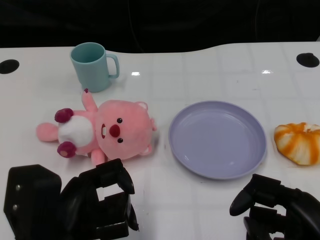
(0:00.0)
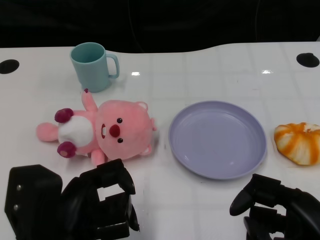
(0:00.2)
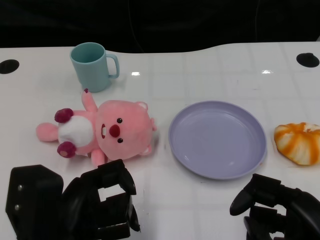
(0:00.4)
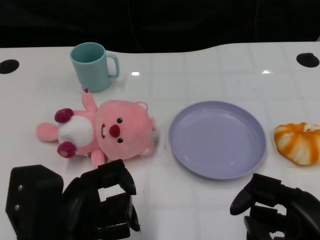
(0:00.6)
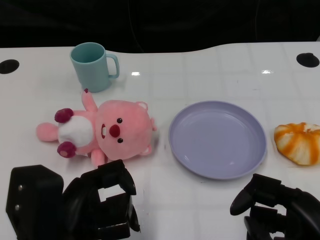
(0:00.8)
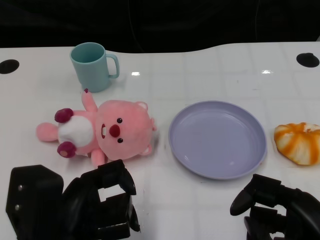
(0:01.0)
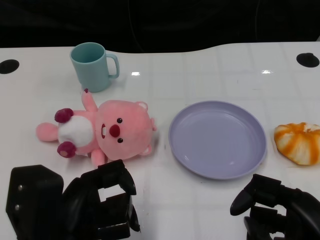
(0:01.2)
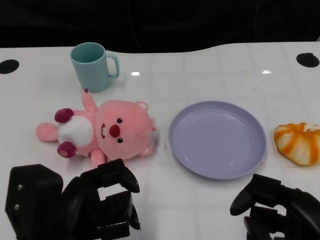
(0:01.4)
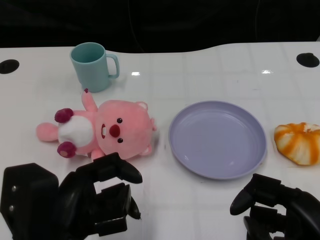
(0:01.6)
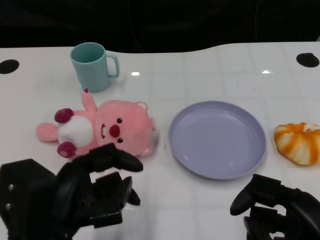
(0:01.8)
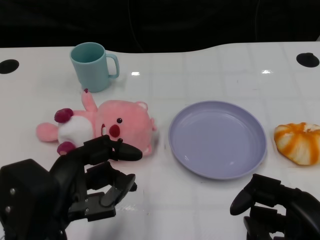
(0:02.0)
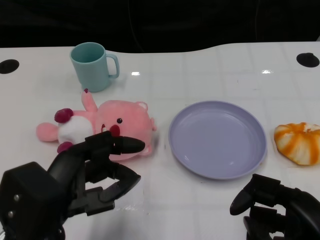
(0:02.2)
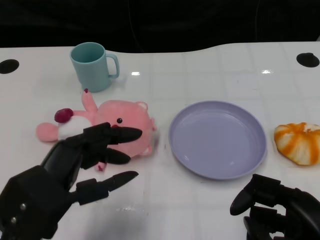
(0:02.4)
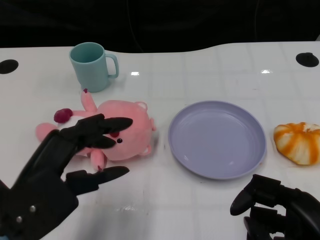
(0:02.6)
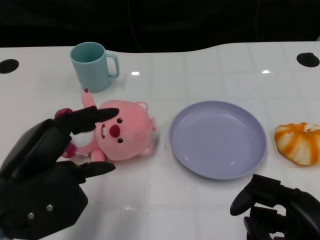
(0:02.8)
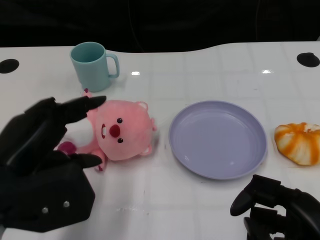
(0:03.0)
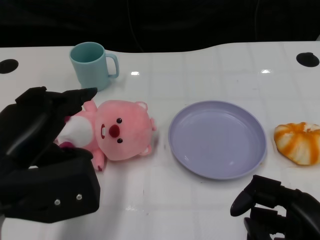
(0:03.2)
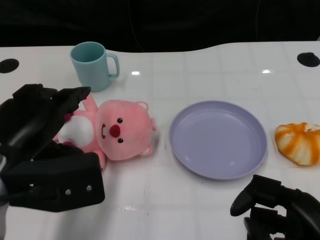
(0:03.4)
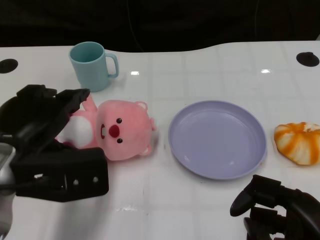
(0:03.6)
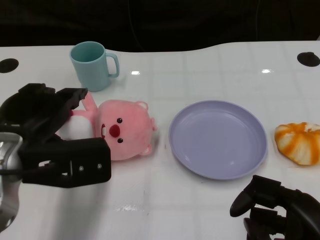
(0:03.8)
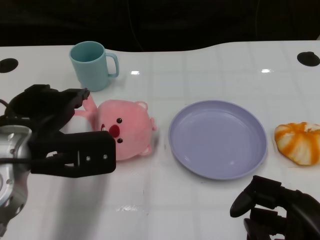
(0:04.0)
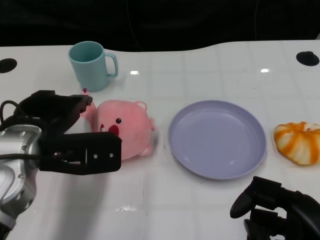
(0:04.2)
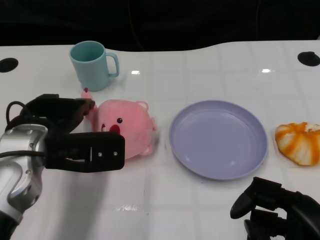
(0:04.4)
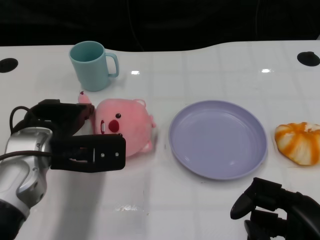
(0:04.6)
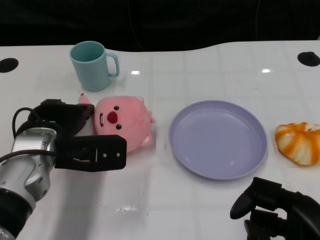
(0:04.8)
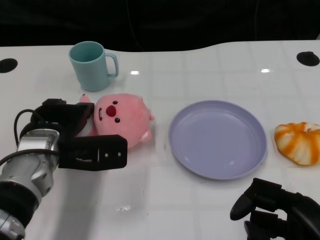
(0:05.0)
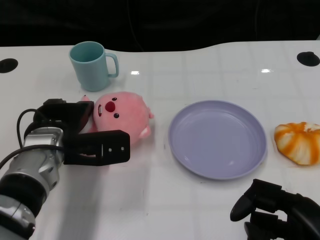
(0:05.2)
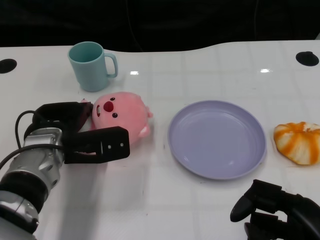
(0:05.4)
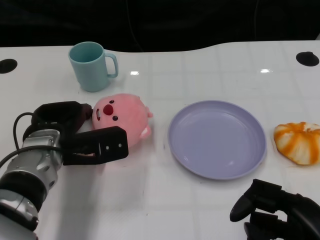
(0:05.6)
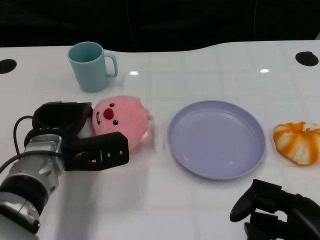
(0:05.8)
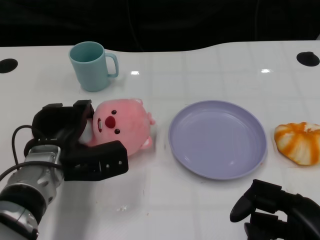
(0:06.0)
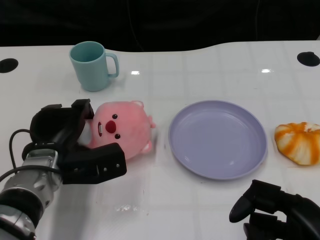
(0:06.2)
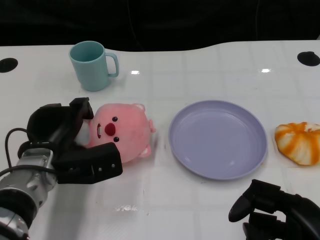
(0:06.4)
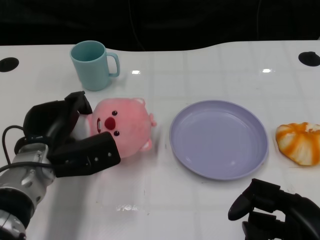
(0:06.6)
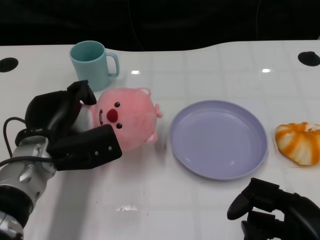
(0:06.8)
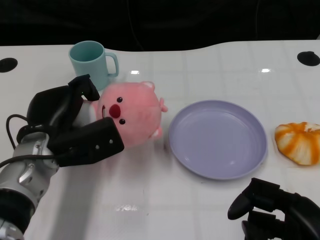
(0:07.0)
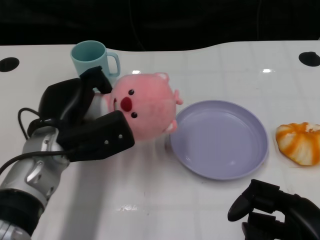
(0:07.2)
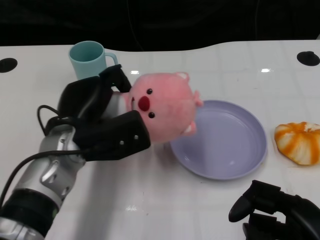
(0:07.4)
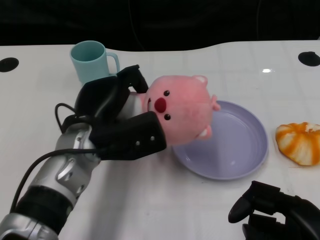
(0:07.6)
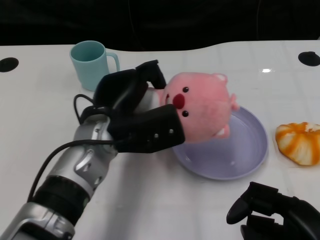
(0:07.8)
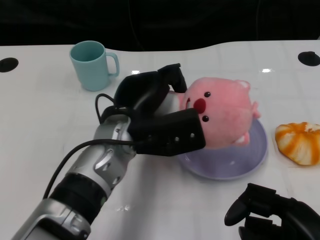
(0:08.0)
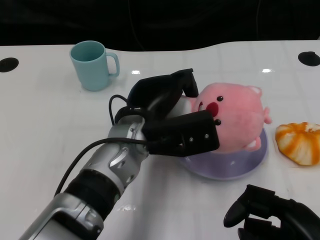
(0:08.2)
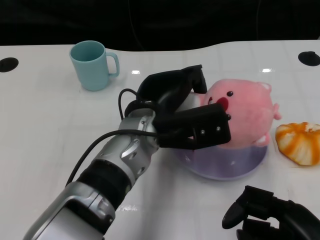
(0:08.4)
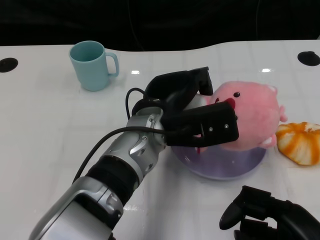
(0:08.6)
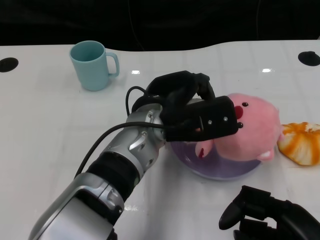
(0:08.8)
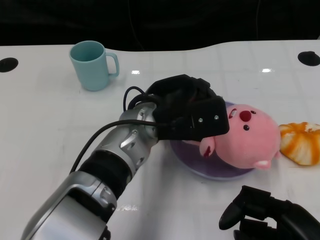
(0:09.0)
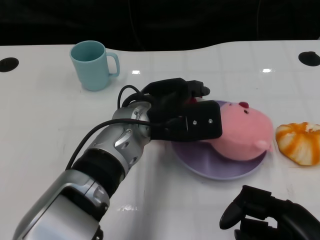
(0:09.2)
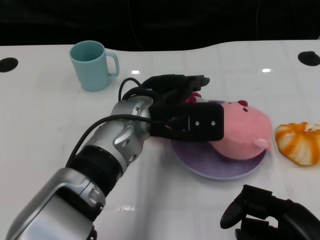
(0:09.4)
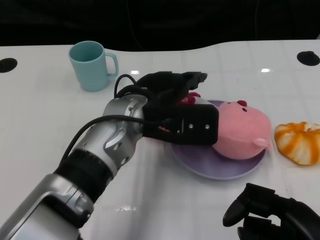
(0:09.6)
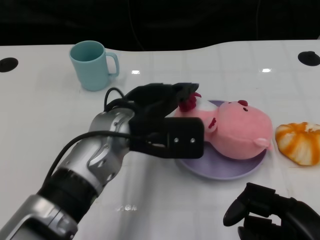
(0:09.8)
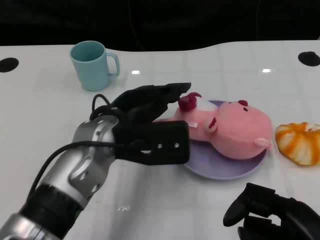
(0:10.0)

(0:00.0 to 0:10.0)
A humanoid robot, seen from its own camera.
Task of the whole recording: Pick up the doll on one side of the plate and place it into the plate.
Step, 0:01.4 - 0:06.0: Grasp the pink doll with the left gripper.
Step, 0:06.2 - 0:09.6: Place the pink doll into the plate with the left gripper.
0:01.4 - 0:02.8: The left hand moves approximately 5 cm.
0:02.8 - 0:04.2: The left hand is displaced forward by roughly 10 cm.
0:04.2 - 0:05.8: The left hand is displaced downward by some 10 cm.
0:07.2 - 0:08.6: The left hand moves to the right, about 15 cm.
0:08.6 - 0:10.0: The left hand goes about 5 cm to the left.

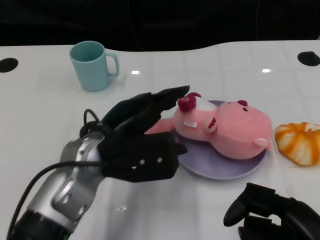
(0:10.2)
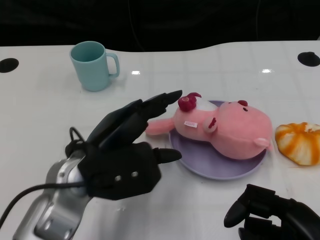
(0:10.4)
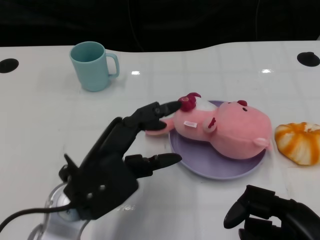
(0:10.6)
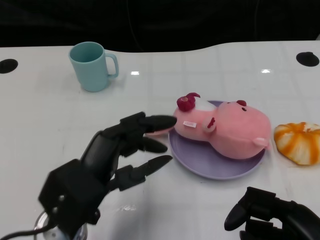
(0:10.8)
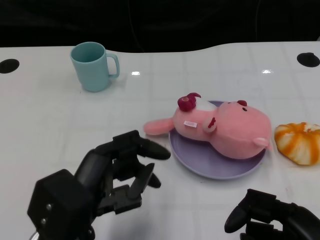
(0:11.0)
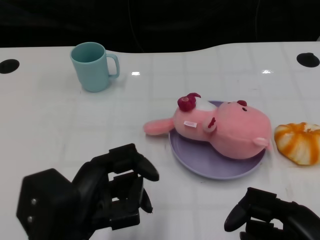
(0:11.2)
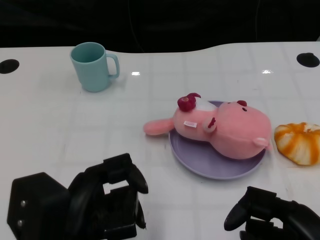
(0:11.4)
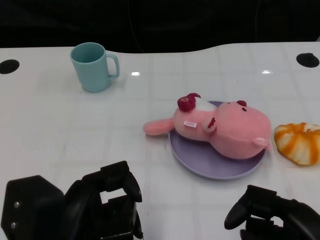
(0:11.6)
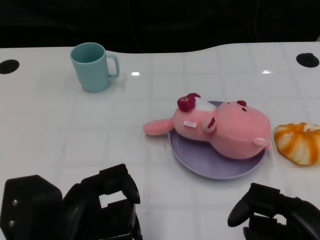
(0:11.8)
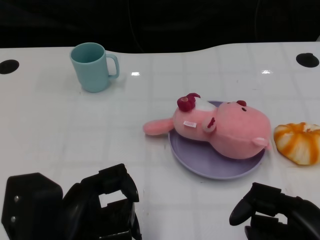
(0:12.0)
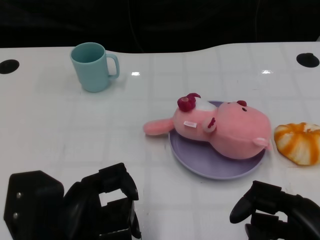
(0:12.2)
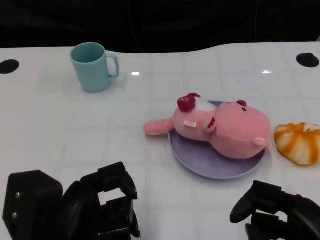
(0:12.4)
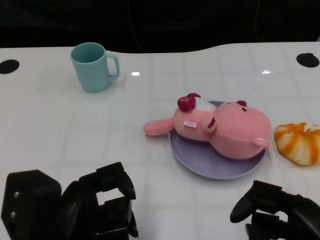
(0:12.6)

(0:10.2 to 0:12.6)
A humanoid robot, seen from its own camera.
Task of the whole recording: Pick up the doll on one side of the plate and place it into the plate.
0:10.2 - 0:11.4: The left hand is displaced backward and to the left by roughly 15 cm.
0:11.4 - 0:12.6: The hands make only small movements.

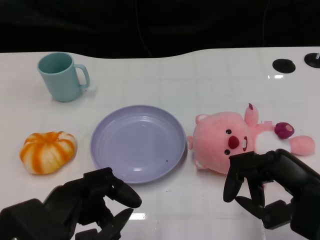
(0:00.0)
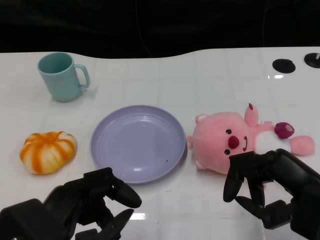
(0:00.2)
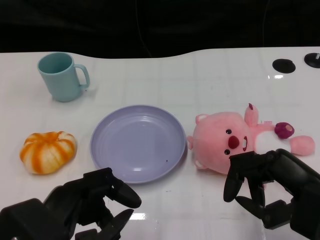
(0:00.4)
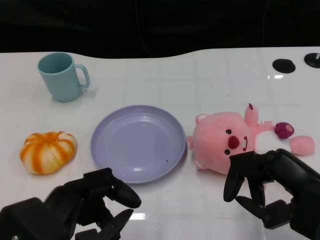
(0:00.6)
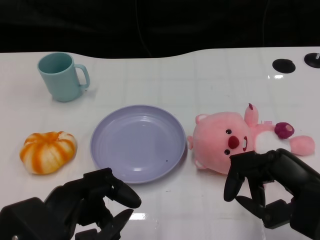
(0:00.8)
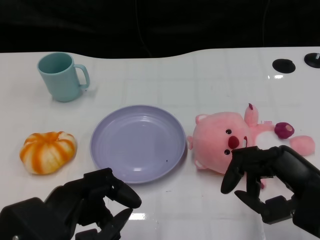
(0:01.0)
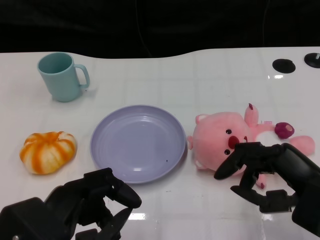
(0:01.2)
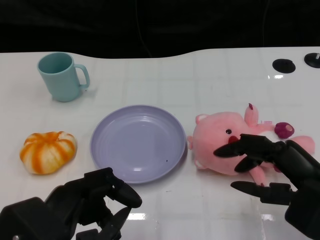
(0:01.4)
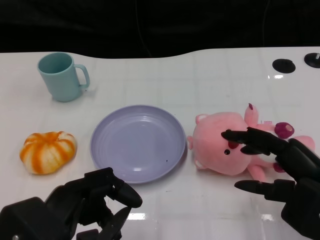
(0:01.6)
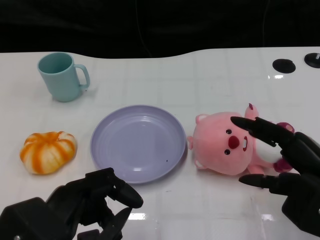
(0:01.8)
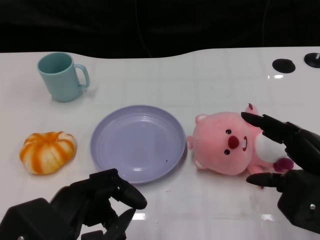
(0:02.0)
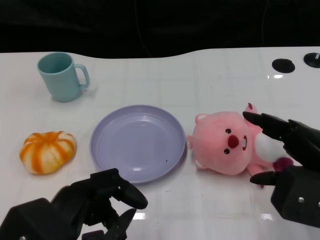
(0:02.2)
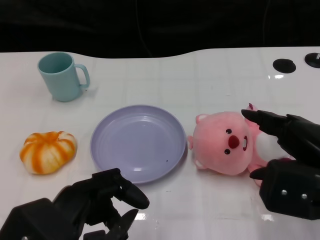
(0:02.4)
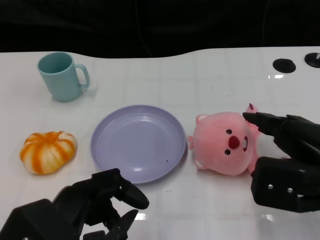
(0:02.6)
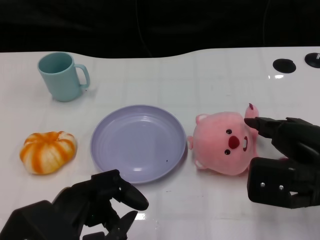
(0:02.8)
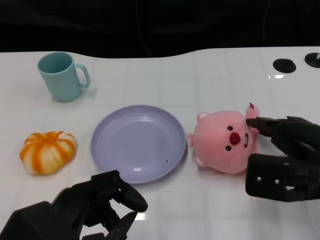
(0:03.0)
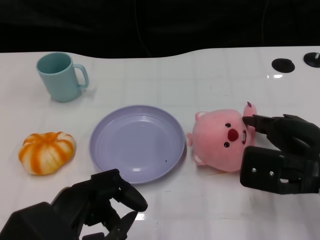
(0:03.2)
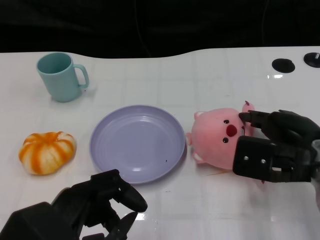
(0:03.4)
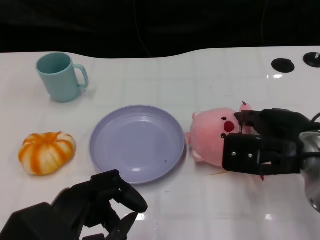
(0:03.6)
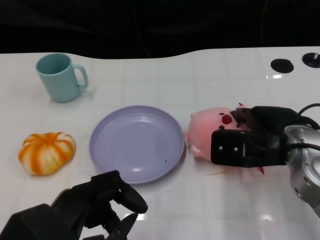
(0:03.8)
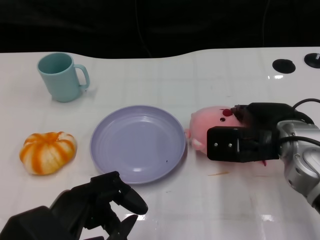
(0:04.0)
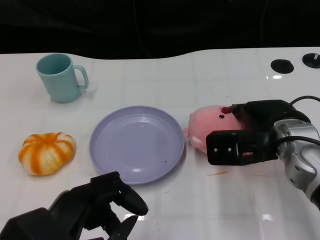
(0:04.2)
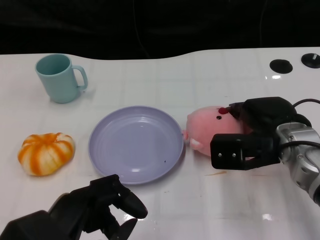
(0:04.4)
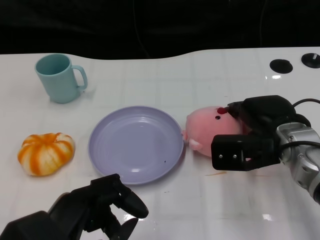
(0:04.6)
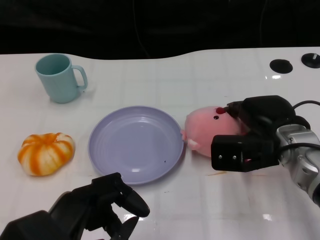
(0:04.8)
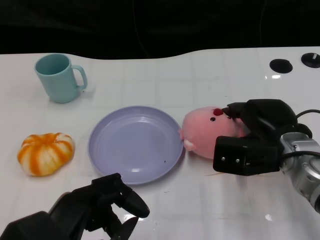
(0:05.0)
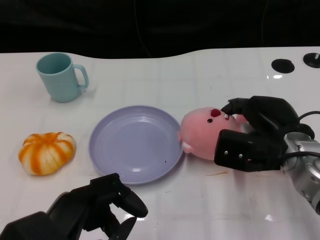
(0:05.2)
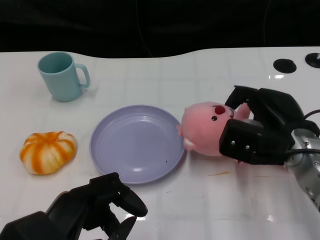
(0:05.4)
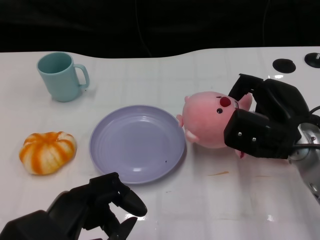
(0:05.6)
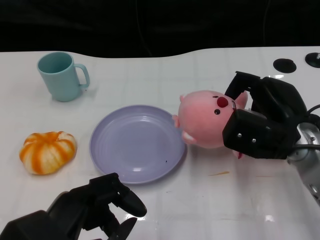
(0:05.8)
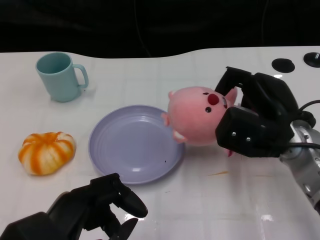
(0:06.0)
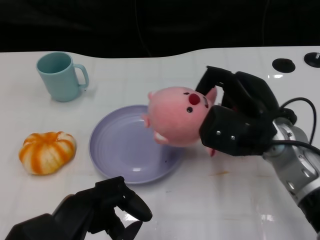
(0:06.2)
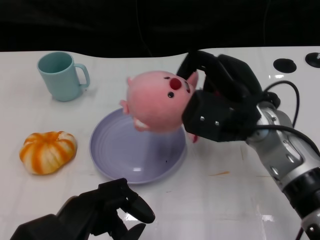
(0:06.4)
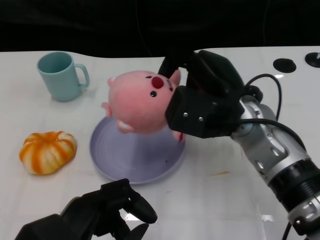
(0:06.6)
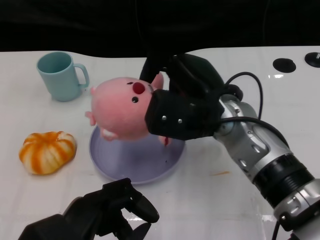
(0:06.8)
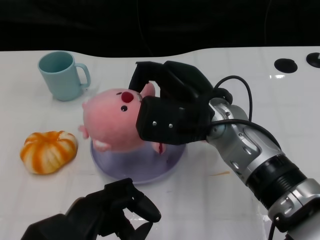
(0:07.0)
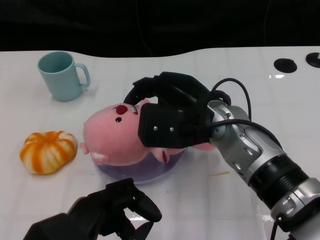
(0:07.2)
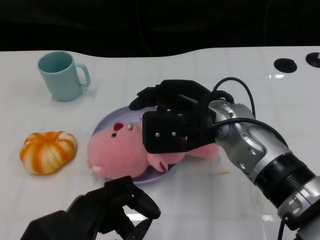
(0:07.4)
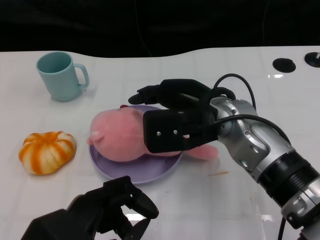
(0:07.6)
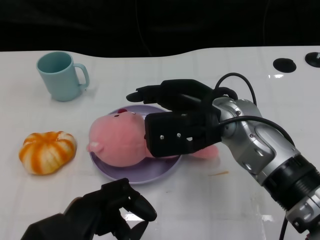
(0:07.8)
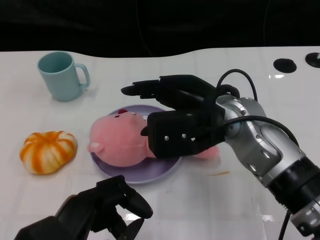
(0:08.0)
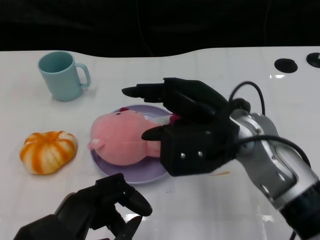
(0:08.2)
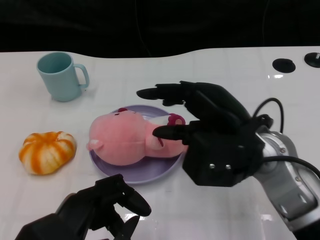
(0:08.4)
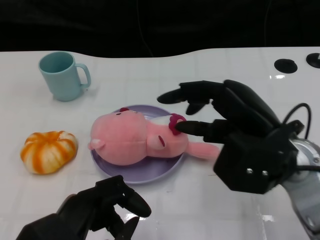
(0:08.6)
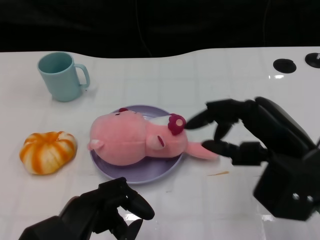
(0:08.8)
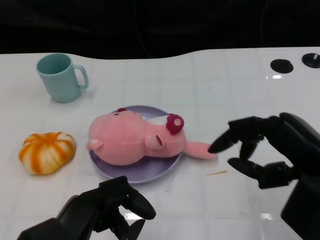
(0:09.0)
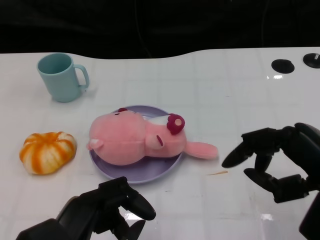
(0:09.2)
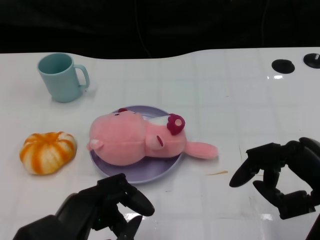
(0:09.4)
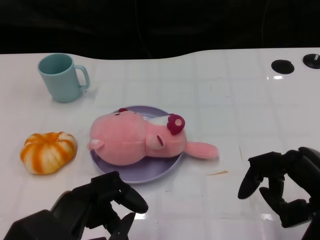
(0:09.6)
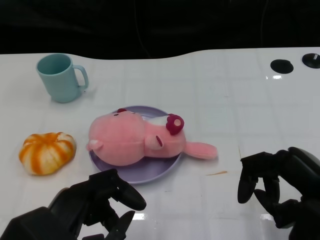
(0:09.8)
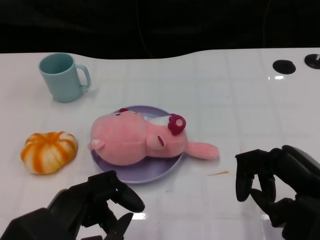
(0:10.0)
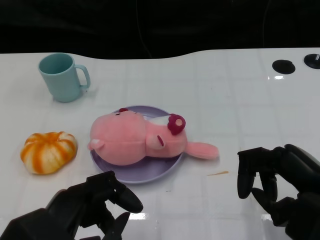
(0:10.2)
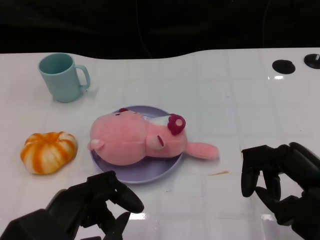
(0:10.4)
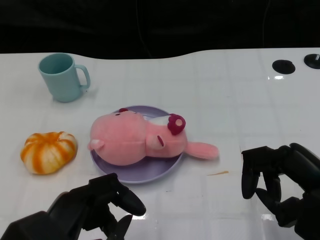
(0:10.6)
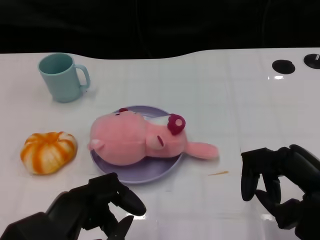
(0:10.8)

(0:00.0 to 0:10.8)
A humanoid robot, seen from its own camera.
Task of the whole recording: Pick up the doll on the other side of the plate and place it into the plate.
Step, 0:01.0 - 0:06.4: Grasp the pink doll with the right gripper.
Step, 0:06.8 - 0:08.6: Place the pink doll into the plate with the right gripper.
0:01.6 - 0:03.0: The right hand moves forward, roughly 5 cm.
0:03.0 - 0:04.6: The right hand is displaced forward by about 5 cm.
0:06.2 - 0:07.8: The right hand moves to the left, some 5 cm.
0:07.8 - 0:09.2: The right hand travels to the right and backward by approximately 20 cm.
0:09.2 - 0:10.8: The hands make only small movements.
